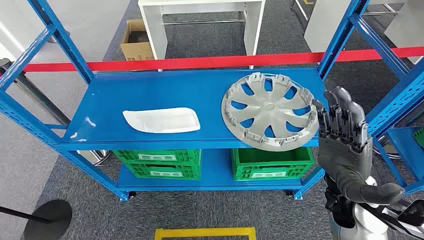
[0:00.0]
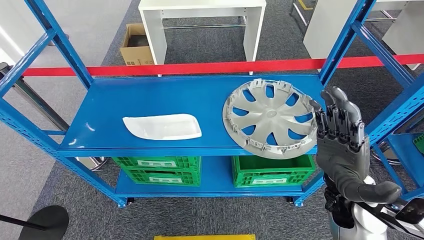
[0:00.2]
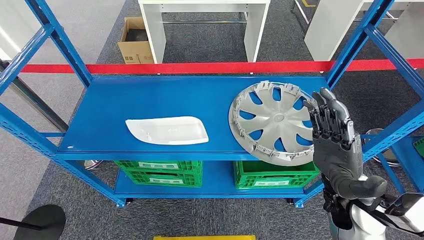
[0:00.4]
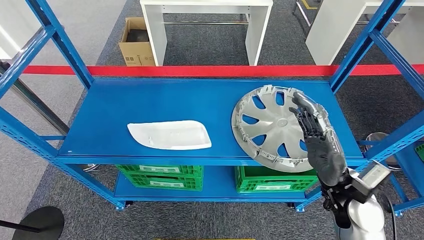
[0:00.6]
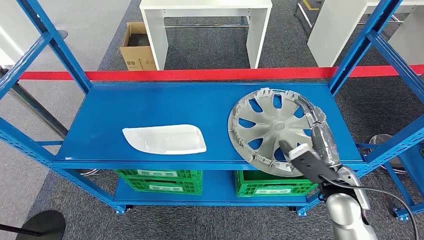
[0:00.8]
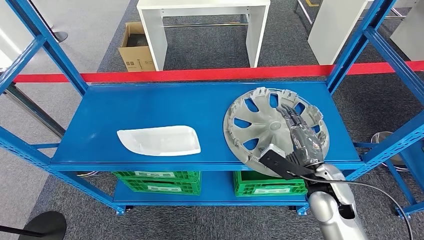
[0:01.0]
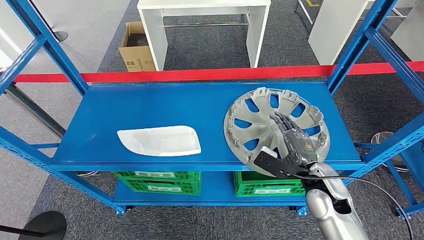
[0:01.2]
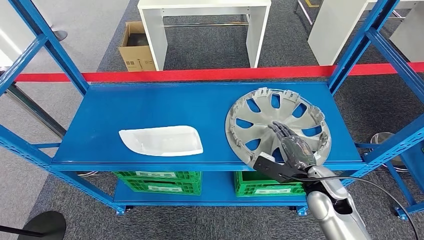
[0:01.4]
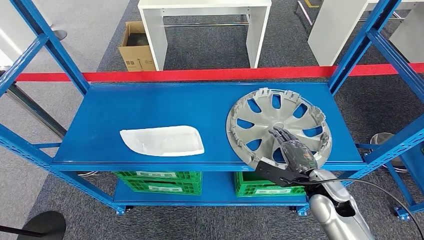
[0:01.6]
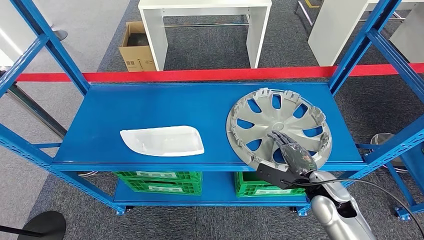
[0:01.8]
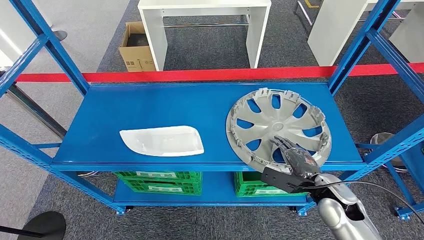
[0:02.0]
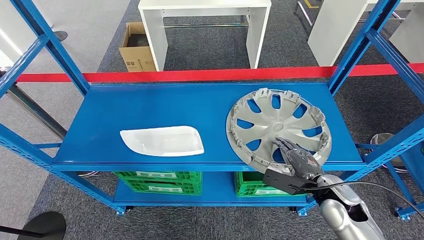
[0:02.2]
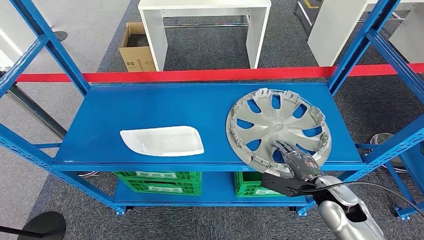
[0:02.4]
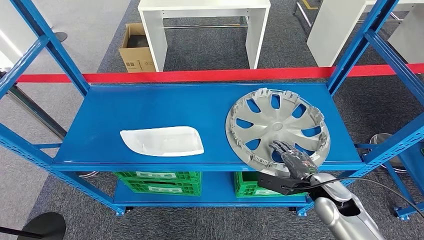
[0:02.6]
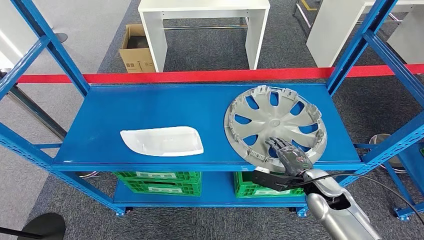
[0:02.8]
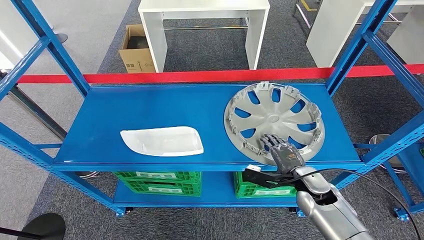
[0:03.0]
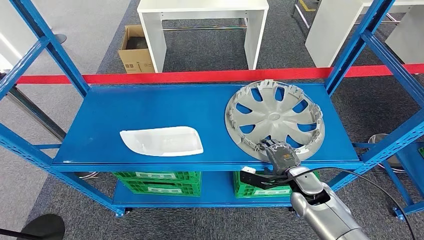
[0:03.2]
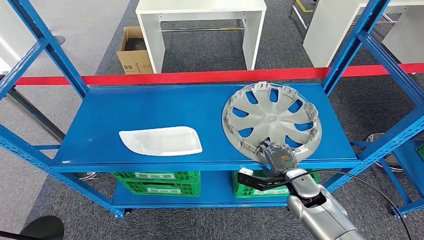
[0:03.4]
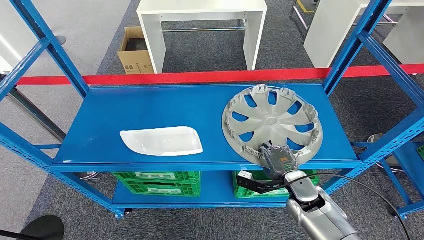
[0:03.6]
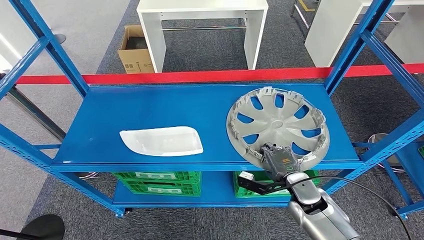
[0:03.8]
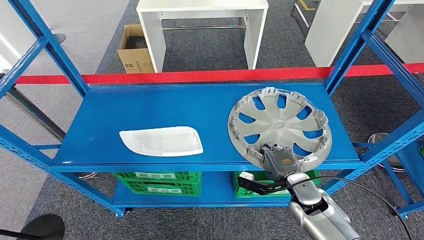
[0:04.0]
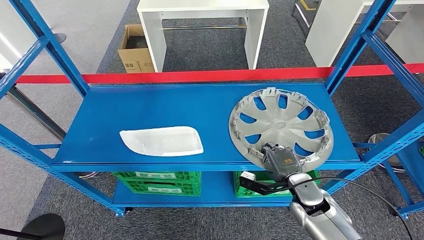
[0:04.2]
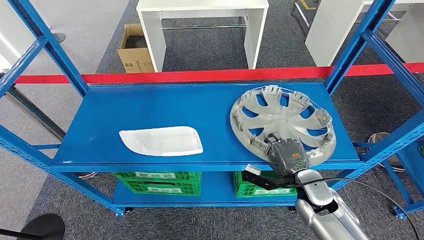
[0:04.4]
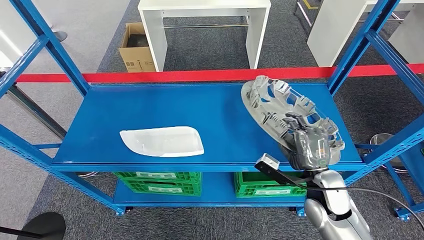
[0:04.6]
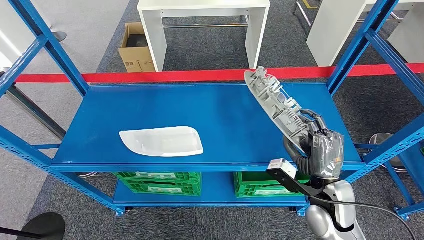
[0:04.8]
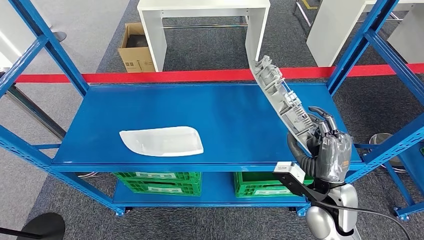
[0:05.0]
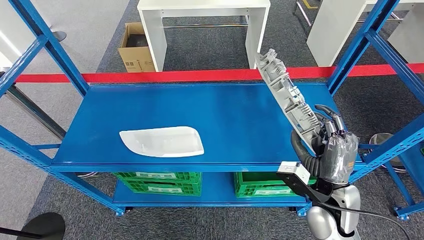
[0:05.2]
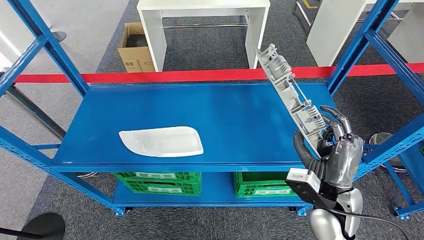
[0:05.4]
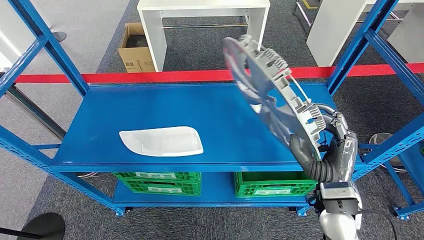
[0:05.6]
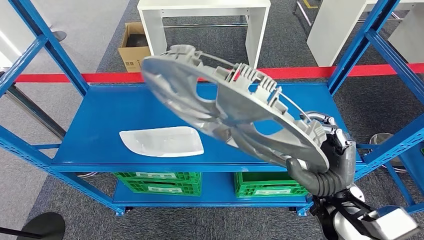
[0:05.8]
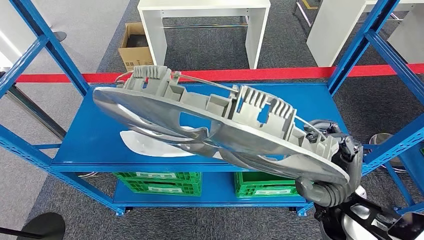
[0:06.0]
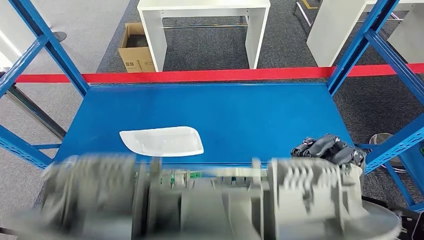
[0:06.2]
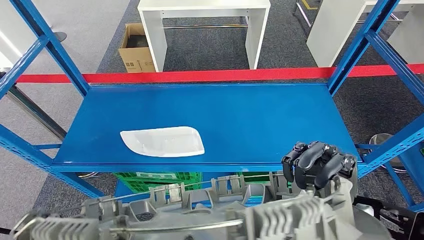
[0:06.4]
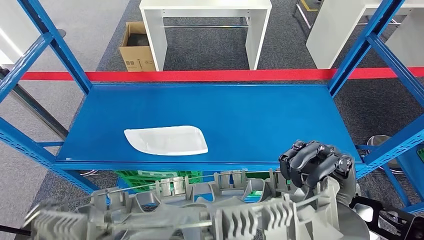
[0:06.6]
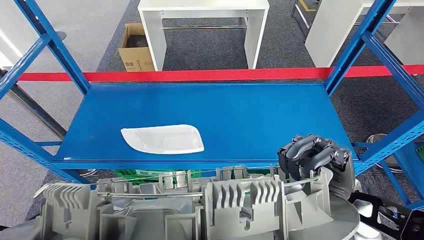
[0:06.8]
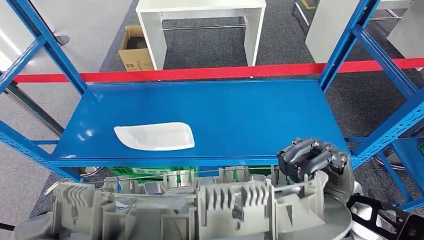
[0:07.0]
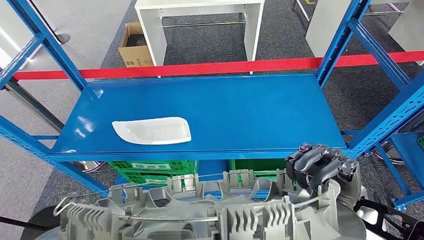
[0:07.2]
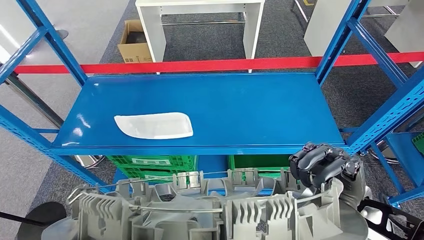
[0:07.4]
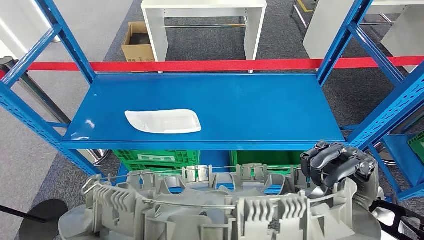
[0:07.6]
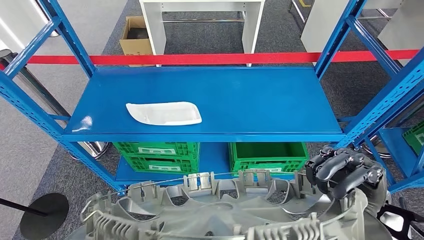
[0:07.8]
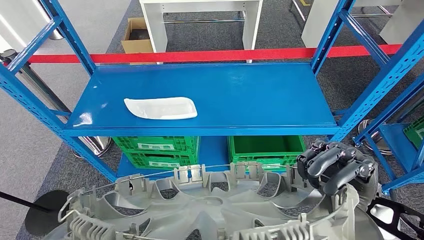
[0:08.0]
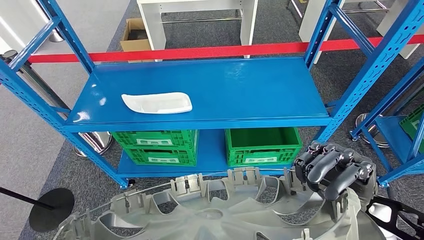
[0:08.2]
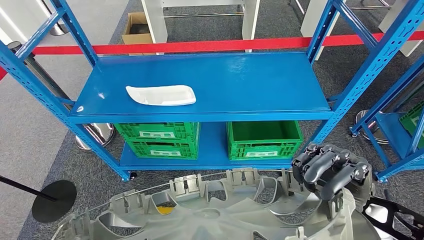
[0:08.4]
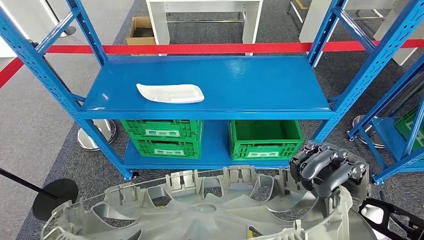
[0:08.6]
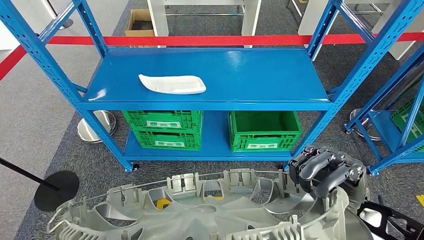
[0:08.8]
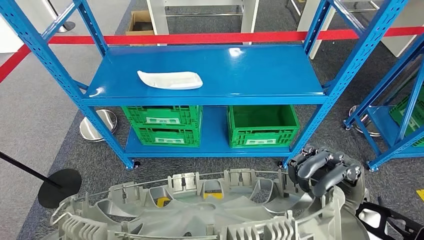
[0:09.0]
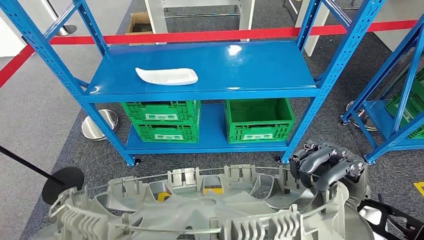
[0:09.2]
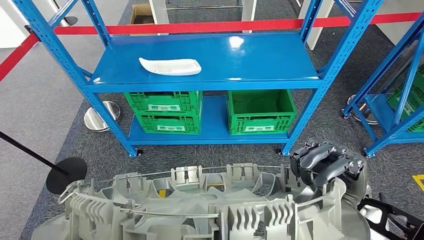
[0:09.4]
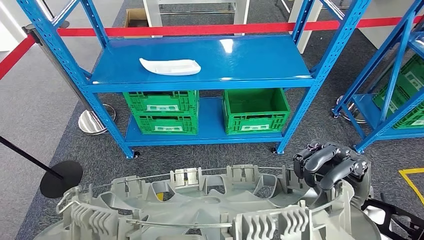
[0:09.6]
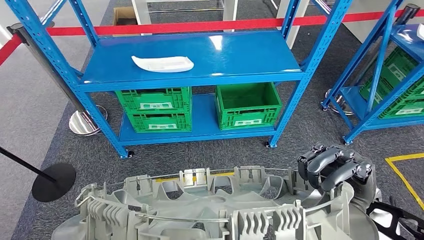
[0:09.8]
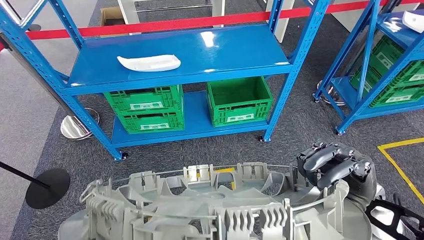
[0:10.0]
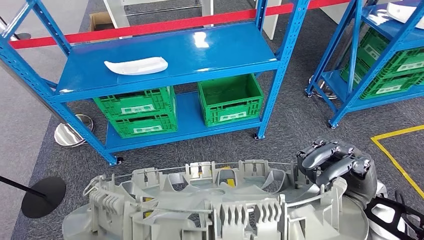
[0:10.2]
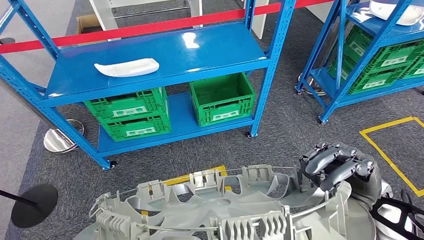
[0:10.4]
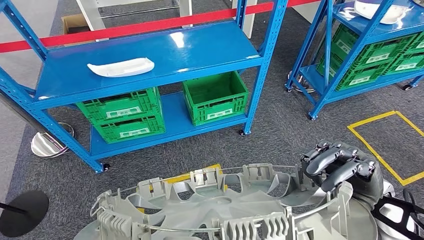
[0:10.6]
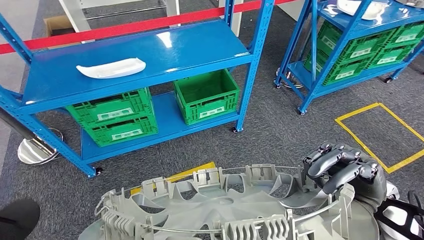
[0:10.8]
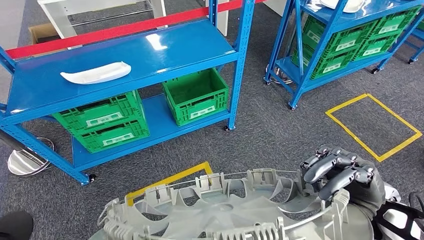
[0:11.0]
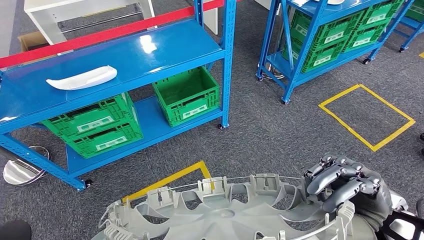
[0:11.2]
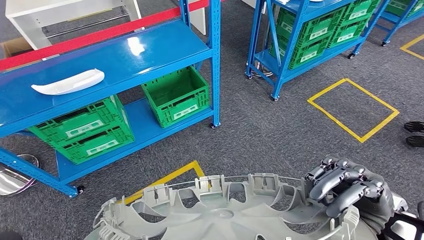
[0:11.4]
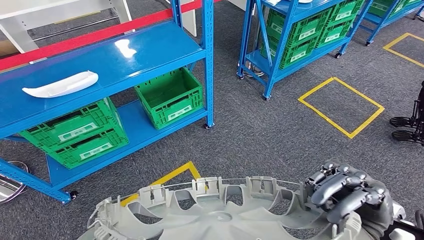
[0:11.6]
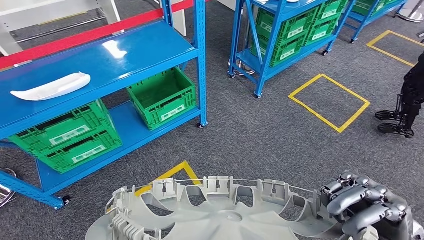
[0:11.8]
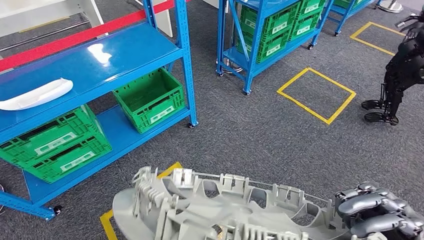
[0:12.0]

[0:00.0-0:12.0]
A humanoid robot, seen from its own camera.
Step, 0:00.0 to 0:05.2: Pick up the small component from the shelf.
0:01.6 to 0:03.0: The hands stay close to where they were, moving slightly.
0:03.0 to 0:04.4: The hands move only a little.

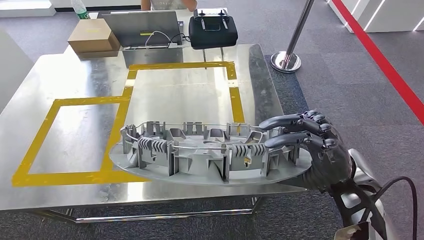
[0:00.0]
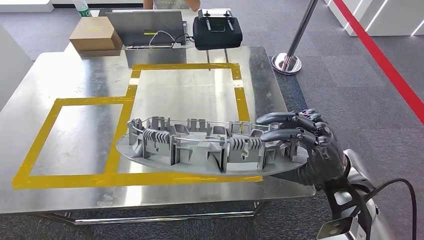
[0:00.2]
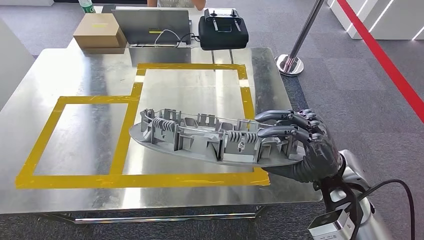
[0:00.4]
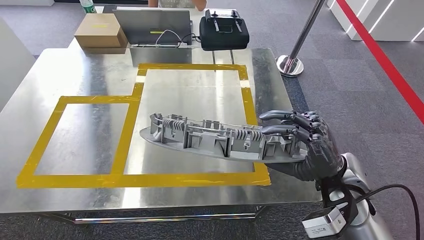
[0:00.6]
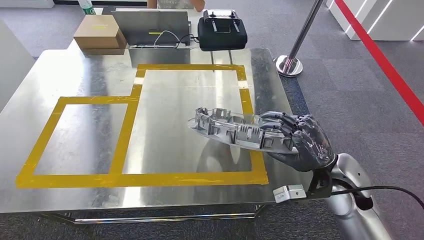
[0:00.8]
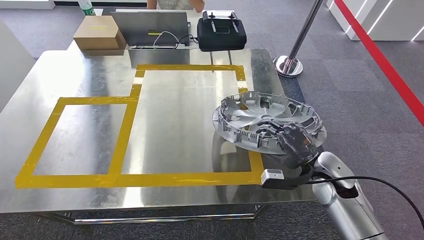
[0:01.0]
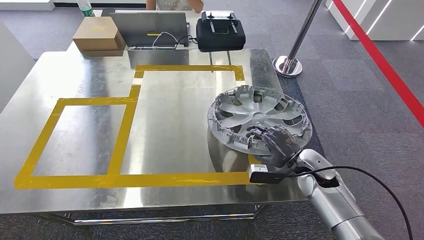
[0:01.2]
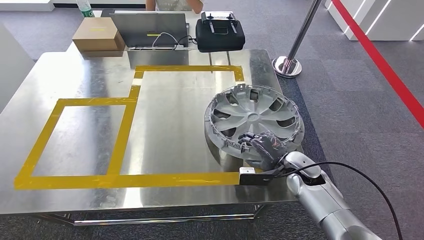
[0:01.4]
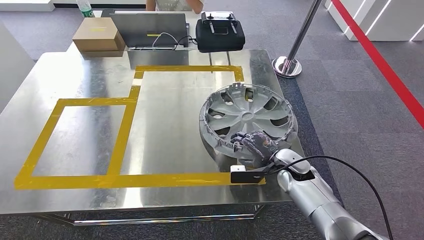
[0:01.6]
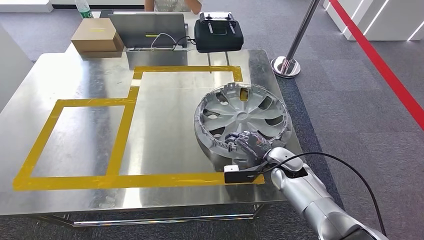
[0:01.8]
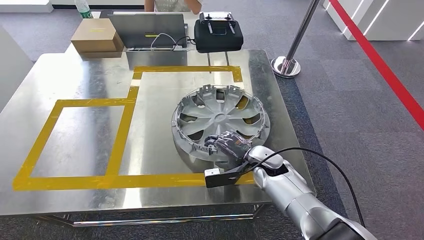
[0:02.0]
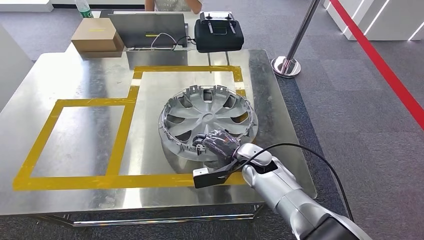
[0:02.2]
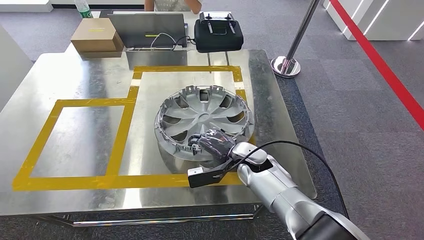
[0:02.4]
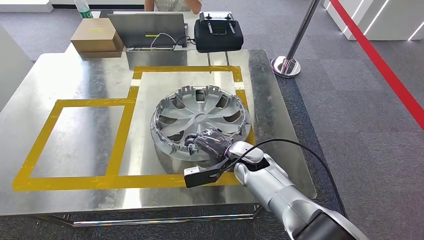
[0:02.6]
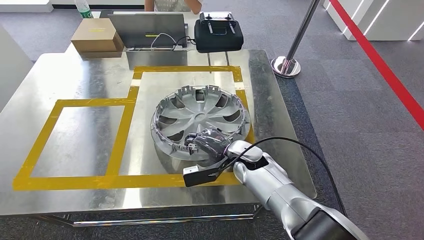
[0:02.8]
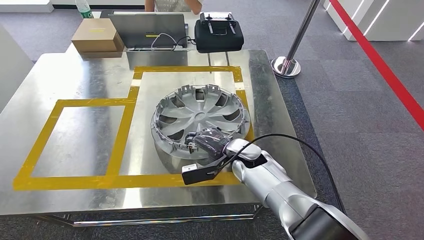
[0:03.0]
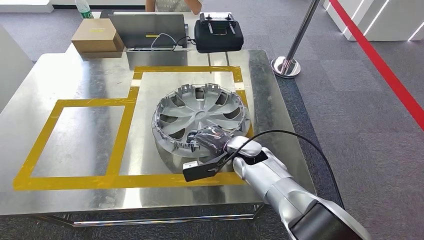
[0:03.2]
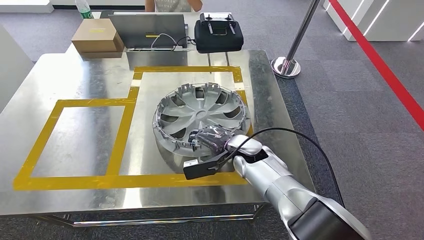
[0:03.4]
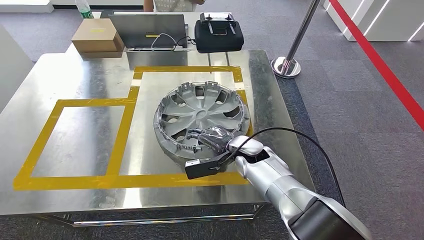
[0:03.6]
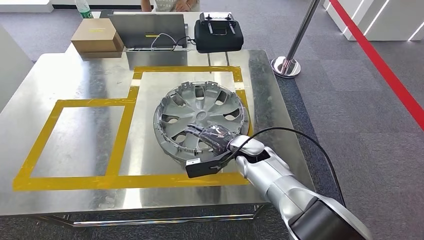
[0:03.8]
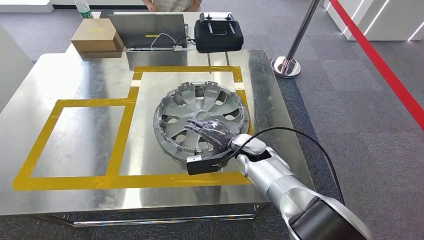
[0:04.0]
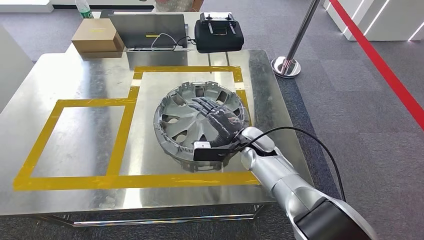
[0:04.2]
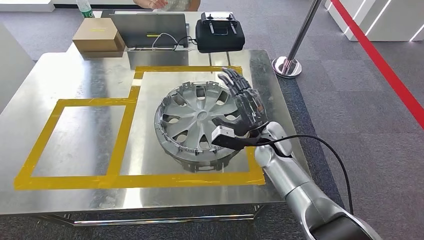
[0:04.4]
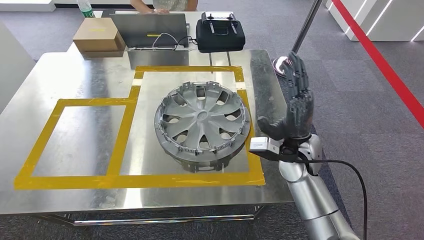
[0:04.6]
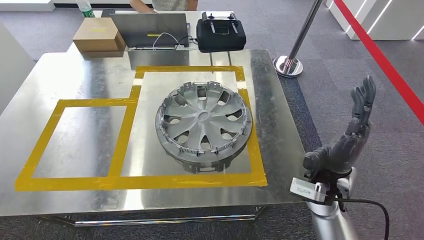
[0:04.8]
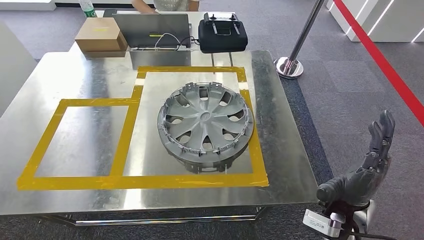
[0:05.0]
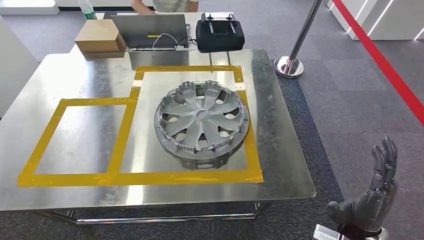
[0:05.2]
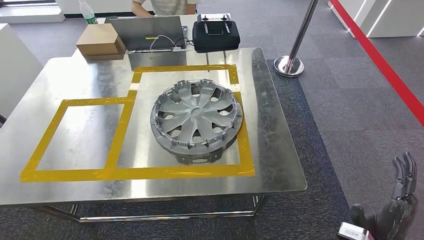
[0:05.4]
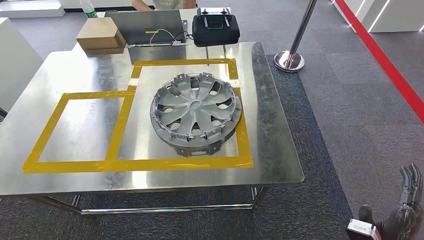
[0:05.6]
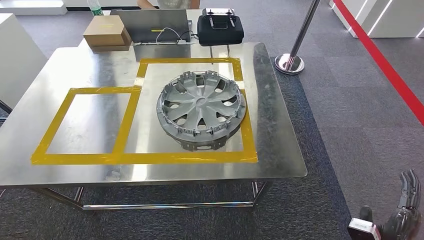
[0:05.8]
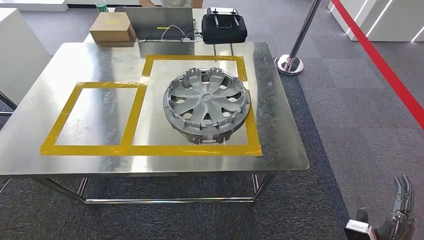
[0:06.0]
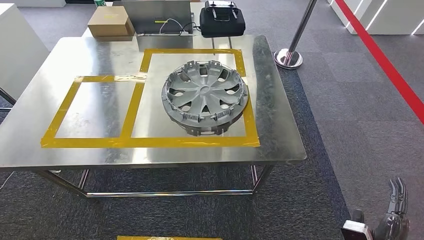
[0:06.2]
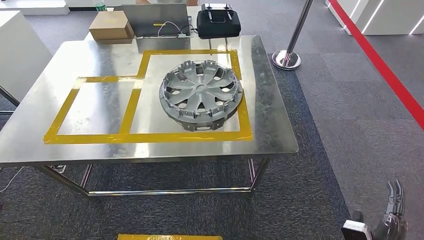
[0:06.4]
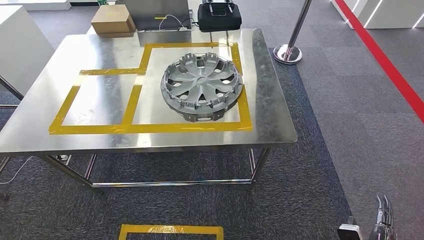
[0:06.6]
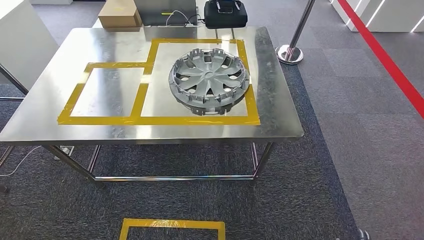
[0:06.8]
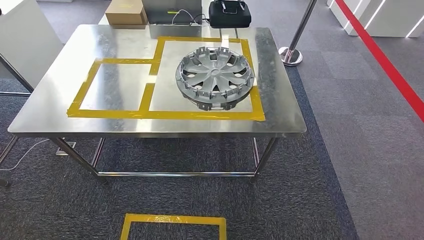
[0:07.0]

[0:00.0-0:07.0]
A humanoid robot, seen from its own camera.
Step, 0:00.2 to 0:05.0: Insert the small component into the corresponding slot on the workbench.
0:02.8 to 0:04.2: There are only small adjustments of the hands.
